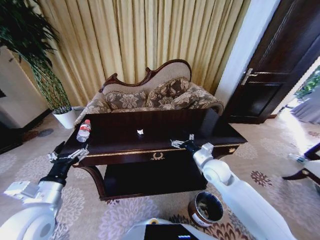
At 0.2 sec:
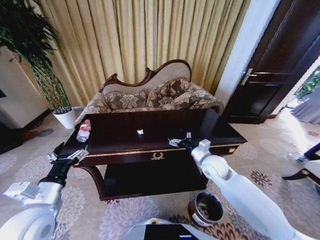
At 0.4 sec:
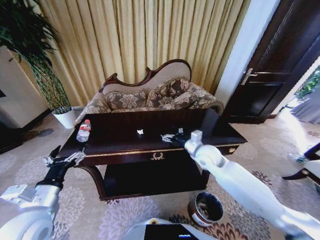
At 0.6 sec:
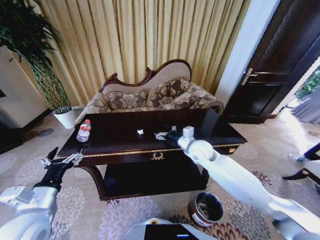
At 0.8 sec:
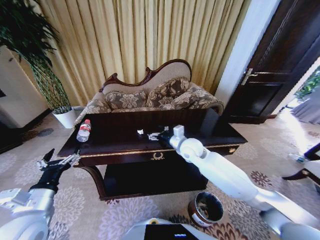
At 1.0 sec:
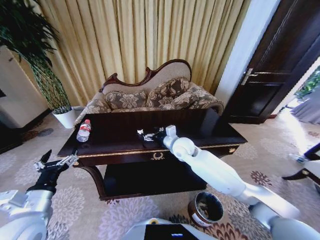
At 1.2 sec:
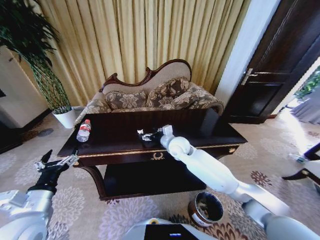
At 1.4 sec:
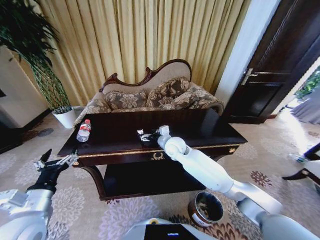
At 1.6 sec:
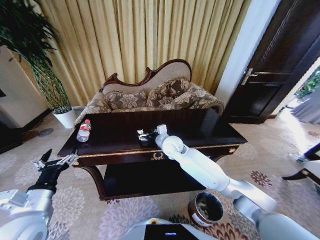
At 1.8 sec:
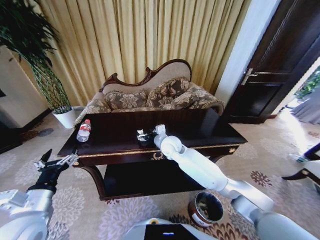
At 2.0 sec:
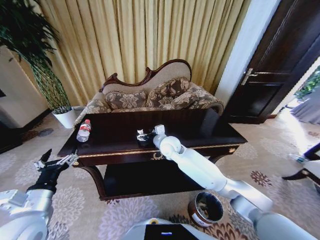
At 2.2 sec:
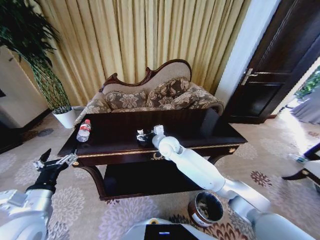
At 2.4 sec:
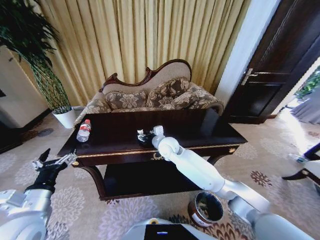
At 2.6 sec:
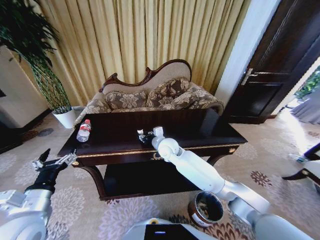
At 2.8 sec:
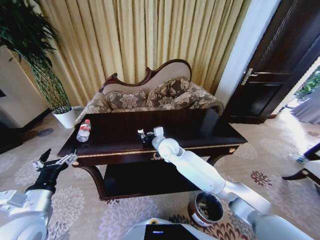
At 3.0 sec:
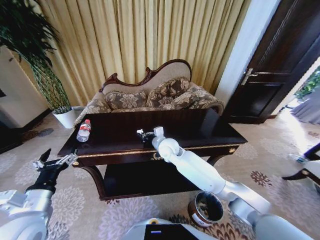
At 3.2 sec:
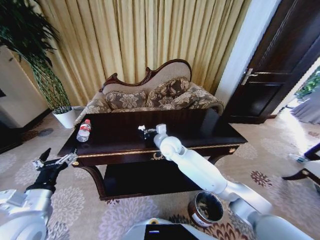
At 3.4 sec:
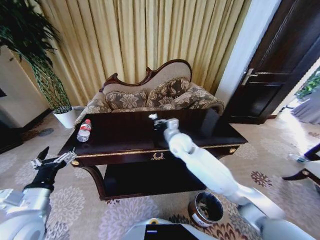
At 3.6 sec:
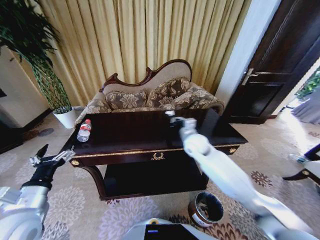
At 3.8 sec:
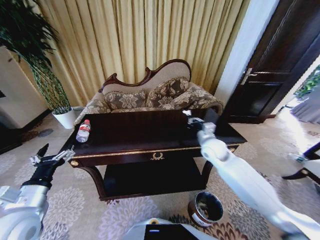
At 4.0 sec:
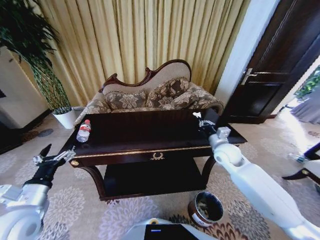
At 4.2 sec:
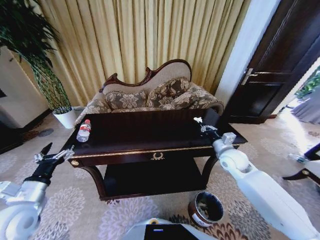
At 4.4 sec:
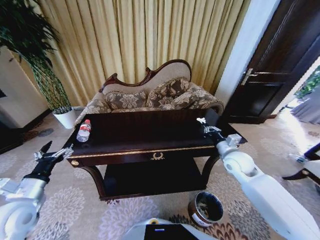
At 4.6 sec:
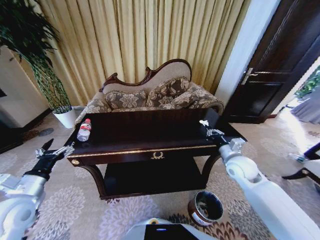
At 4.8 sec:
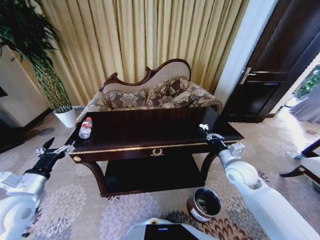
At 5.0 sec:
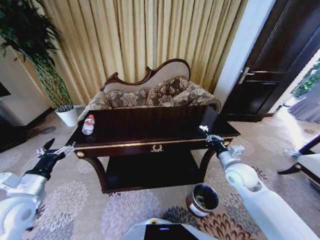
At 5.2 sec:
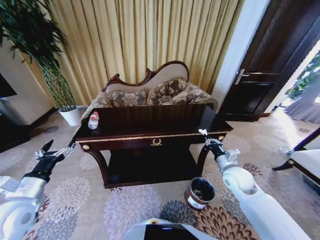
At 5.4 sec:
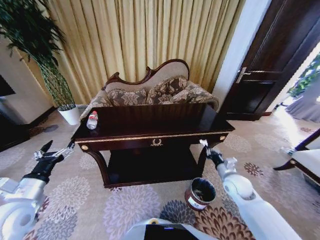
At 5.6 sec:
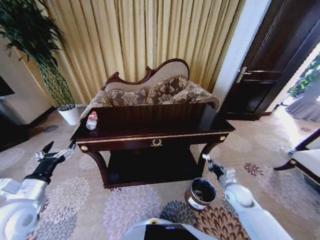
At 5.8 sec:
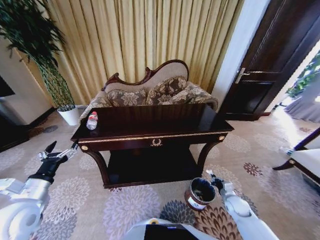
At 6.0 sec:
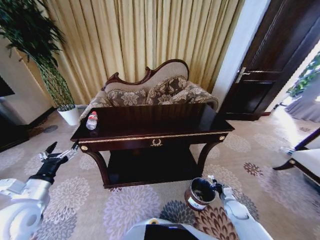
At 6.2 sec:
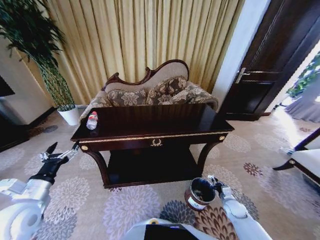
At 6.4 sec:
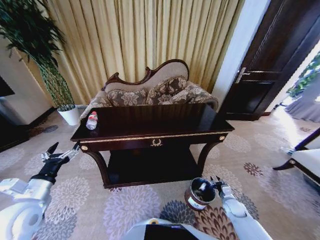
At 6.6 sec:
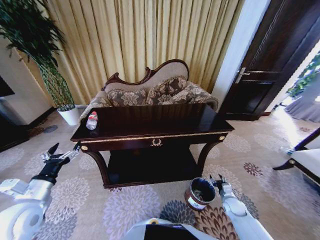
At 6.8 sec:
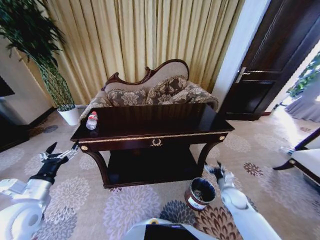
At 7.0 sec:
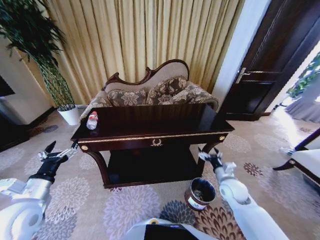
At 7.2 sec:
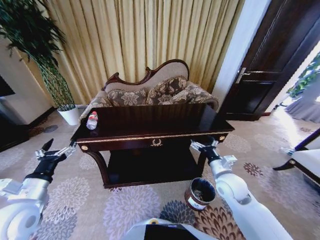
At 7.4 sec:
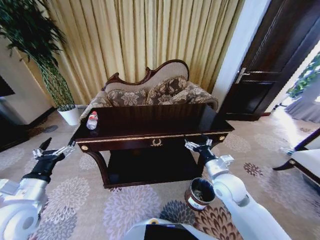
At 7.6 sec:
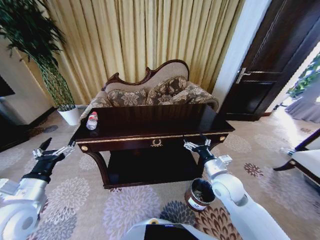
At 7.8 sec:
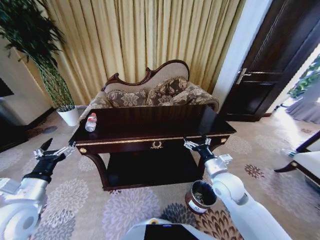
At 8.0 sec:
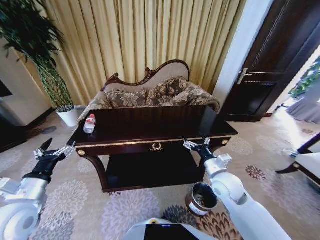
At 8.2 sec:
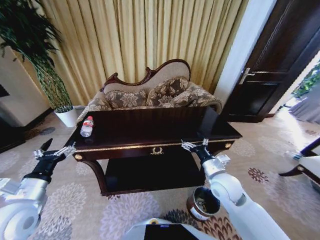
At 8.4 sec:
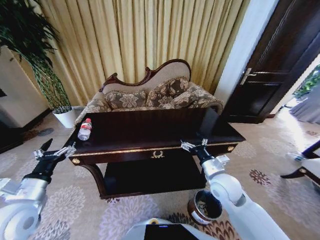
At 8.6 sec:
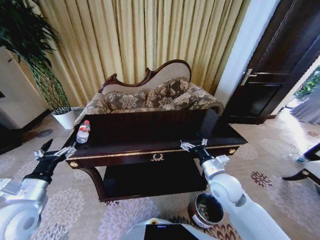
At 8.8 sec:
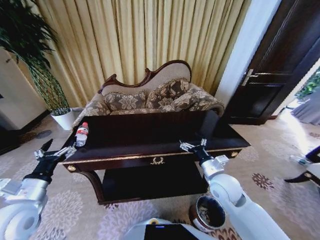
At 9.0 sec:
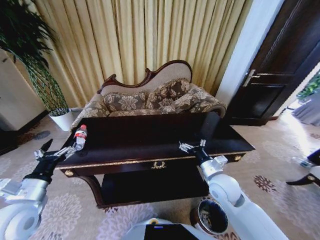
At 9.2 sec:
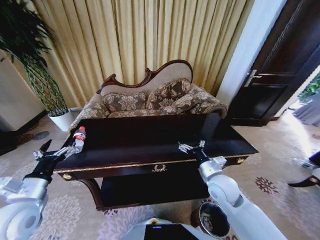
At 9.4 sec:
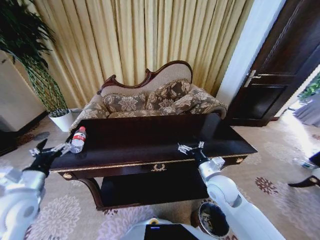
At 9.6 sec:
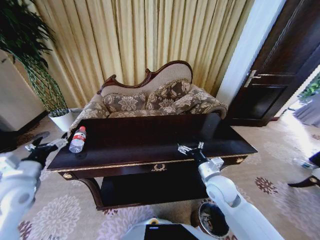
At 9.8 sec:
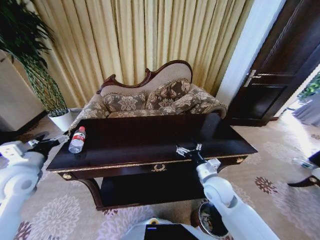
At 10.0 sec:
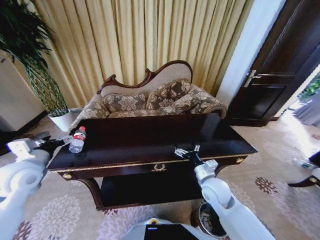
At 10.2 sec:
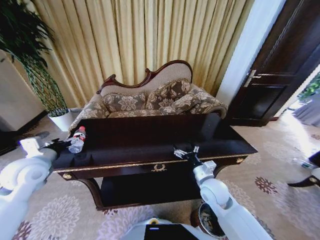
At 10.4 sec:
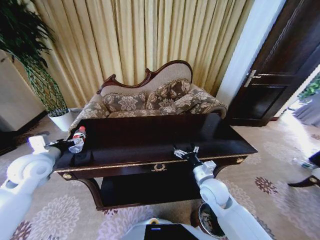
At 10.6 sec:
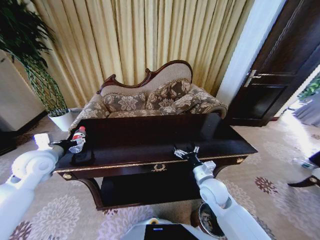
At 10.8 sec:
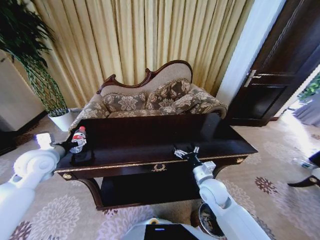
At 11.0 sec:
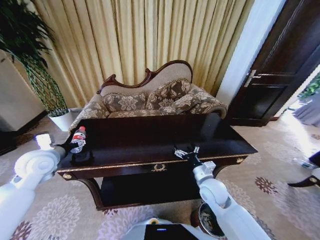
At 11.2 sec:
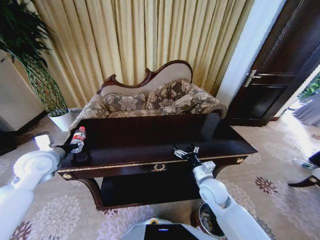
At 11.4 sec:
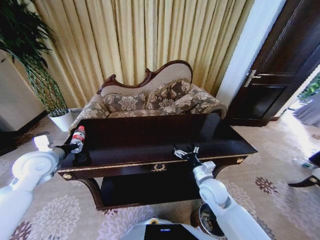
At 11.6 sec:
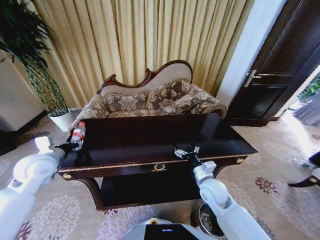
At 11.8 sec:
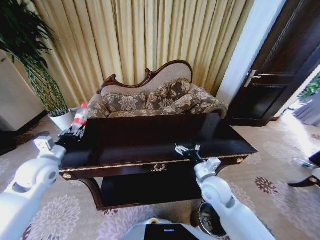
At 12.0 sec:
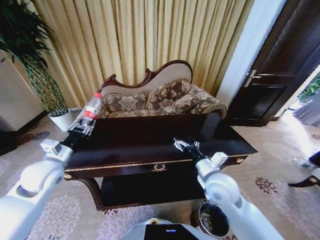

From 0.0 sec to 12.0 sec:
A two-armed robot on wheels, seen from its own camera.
Task of the whole recording: Move to the front of the table and place the trash on the table into the trash bin.
From 0.0 sec to 1.6 sec: The right gripper is displaced to the left and forward by roughly 20 cm.
From 1.6 sec to 3.0 sec: The right gripper closes up.
From 3.0 sec to 4.4 sec: The left gripper goes some 5 cm to the left, while the right gripper shifts roughly 30 cm to the right.
From 4.4 sec to 6.0 sec: The right gripper shifts approximately 30 cm downward and backward.
From 6.0 sec to 7.6 sec: The right gripper goes some 30 cm upward and to the left, and opens.
From 9.0 sec to 10.4 sec: The left gripper goes approximately 15 cm forward.
From 10.4 sec to 12.0 sec: The right gripper is displaced upward by about 10 cm. The left gripper closes up.

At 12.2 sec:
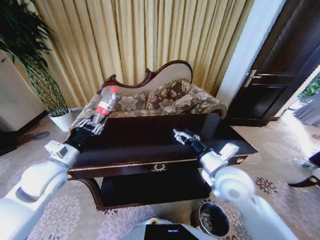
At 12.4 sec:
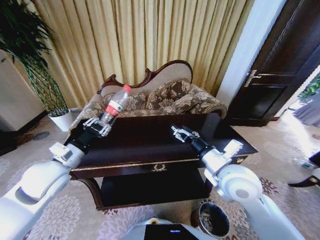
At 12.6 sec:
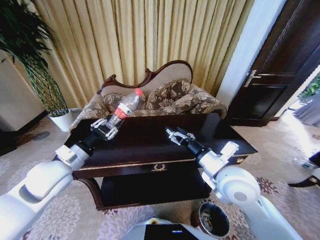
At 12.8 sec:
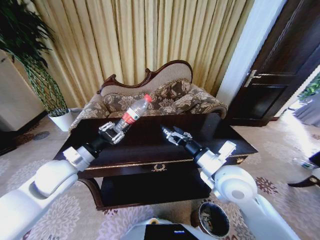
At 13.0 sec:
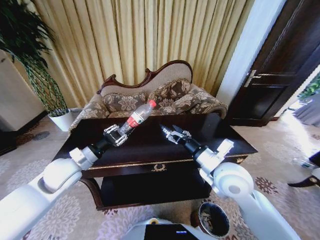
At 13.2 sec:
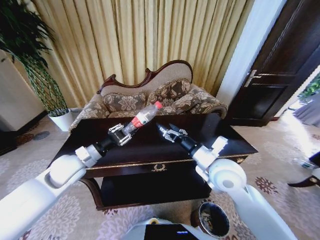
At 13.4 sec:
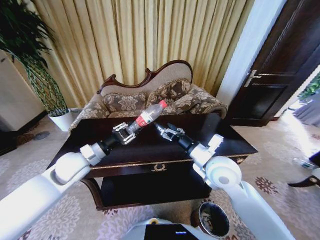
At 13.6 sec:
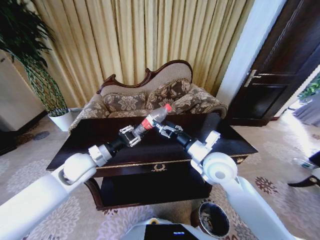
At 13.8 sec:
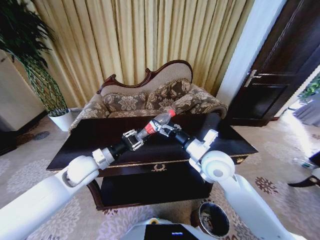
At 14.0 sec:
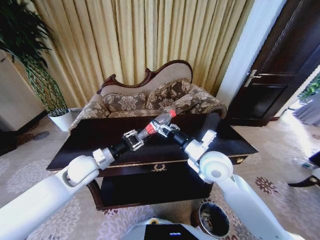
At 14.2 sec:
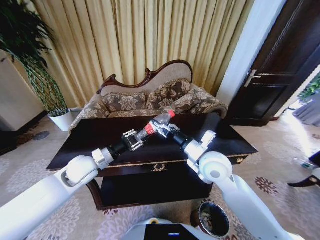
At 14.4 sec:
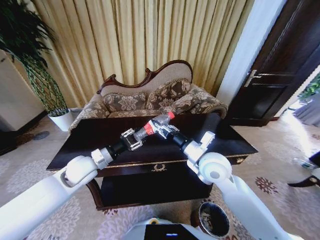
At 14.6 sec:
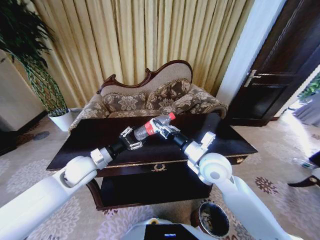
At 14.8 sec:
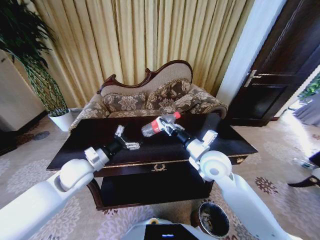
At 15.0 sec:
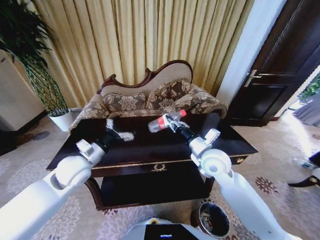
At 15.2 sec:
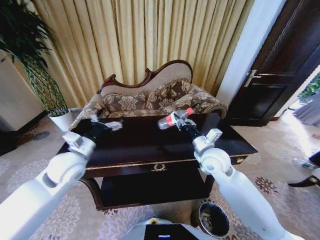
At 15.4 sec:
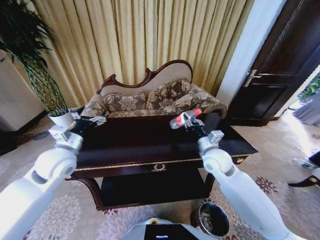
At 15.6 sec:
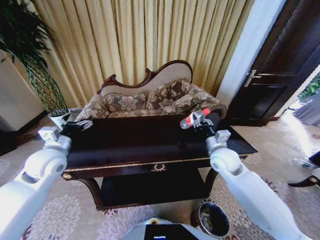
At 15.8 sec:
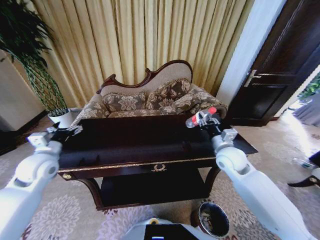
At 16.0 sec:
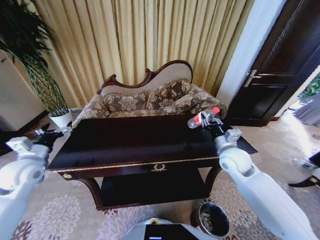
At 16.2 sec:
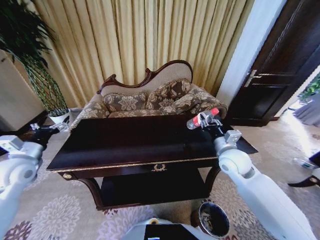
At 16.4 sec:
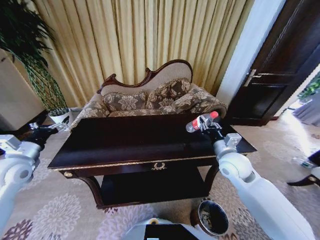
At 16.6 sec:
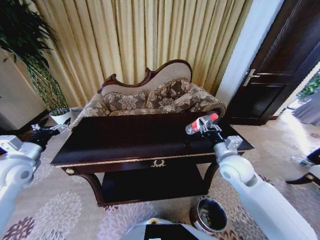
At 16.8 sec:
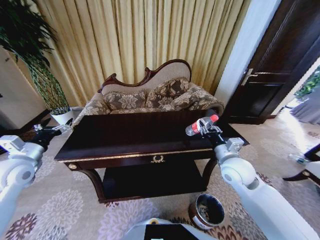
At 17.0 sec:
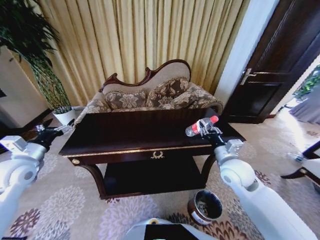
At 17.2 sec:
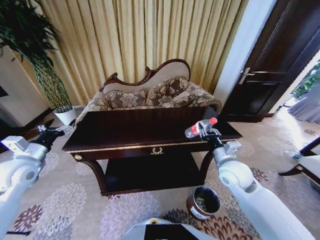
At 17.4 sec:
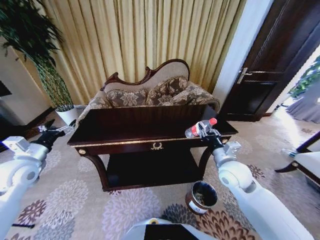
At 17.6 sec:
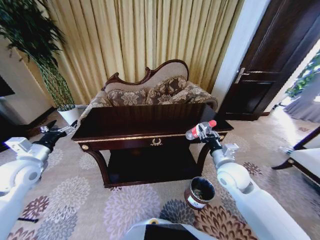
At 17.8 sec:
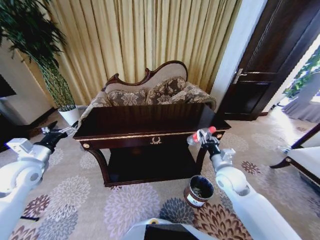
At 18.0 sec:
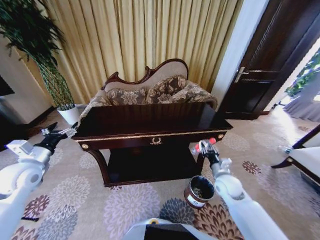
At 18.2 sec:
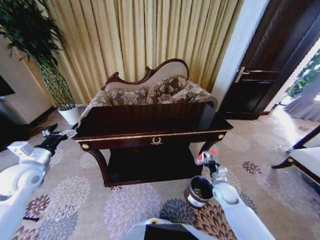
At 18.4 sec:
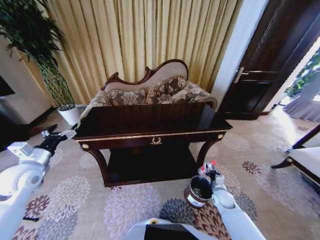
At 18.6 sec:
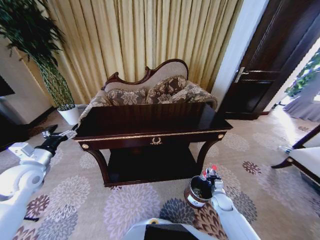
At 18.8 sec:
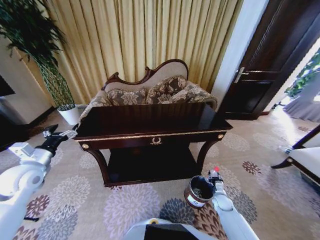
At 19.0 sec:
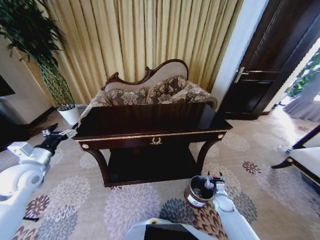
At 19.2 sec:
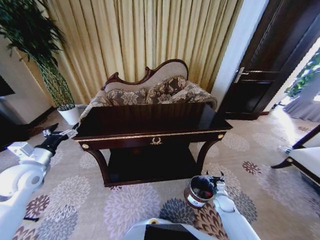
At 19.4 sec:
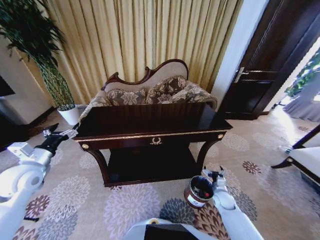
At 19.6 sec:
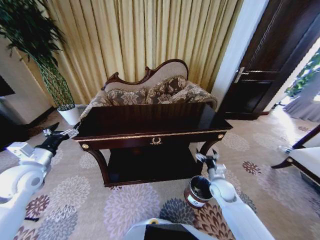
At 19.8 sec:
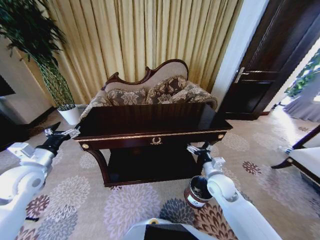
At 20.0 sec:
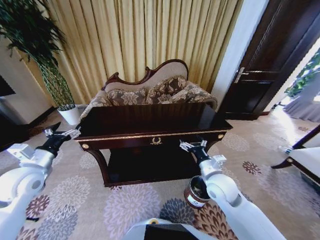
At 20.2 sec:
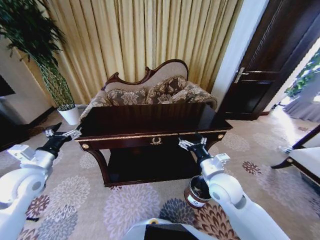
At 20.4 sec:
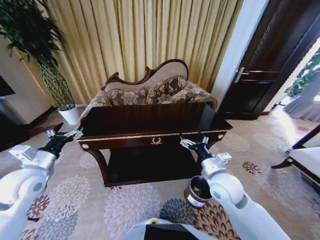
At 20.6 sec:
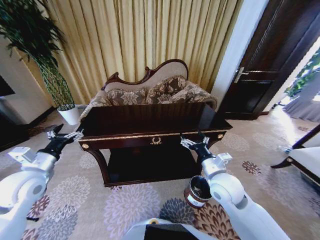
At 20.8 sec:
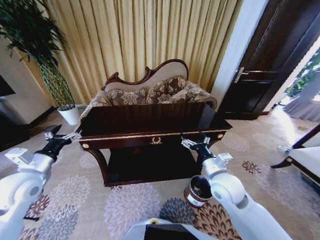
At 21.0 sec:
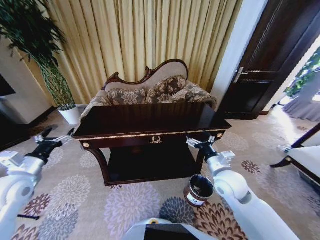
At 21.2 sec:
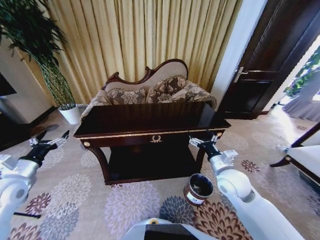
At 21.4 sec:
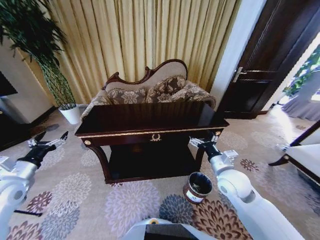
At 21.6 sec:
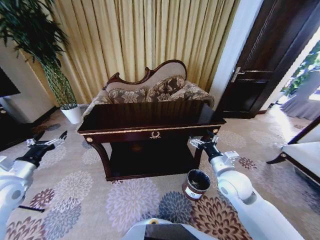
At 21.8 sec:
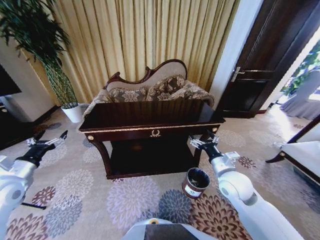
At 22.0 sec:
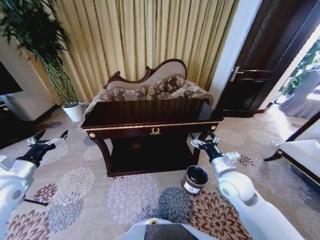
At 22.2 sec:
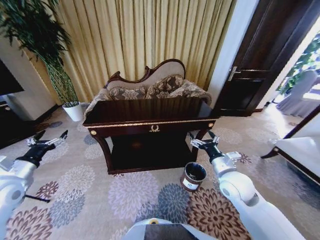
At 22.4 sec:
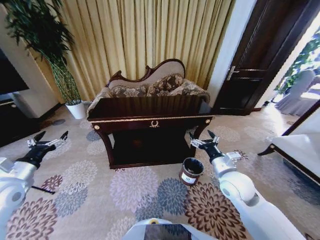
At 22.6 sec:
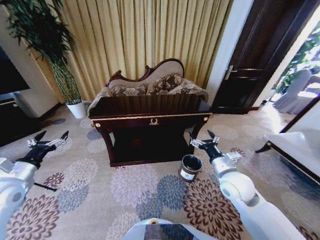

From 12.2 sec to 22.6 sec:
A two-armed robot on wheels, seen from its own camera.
Task of the whole recording: Move to the front of the table and place the trash on the table into the trash bin.
From 12.2 sec to 13.6 sec: The left gripper is displaced to the right by about 5 cm, while the right gripper moves some 5 cm.
From 13.6 sec to 15.2 sec: The left gripper opens its fingers. Meanwhile the right gripper changes place by roughly 5 cm, and closes up.
From 15.2 sec to 16.6 sec: The right gripper is displaced to the right by roughly 5 cm, while the left gripper travels to the left by some 15 cm.
From 16.6 sec to 18.2 sec: The right gripper shifts some 25 cm downward.
From 18.2 sec to 19.6 sec: The right gripper travels downward and back again, about 10 cm each way, and opens.
From 19.6 sec to 21.2 sec: The left gripper ends up some 5 cm from where it was. The right gripper goes approximately 15 cm upward.
